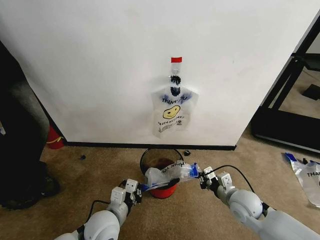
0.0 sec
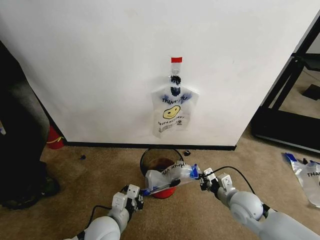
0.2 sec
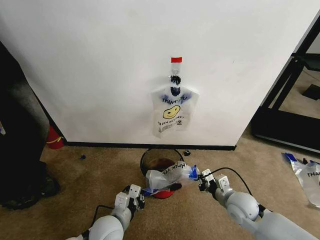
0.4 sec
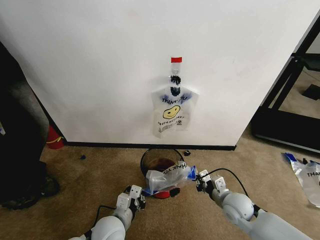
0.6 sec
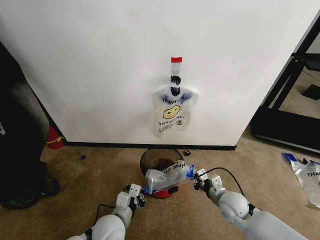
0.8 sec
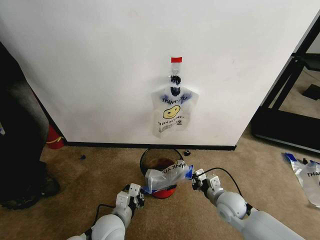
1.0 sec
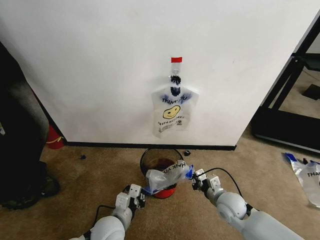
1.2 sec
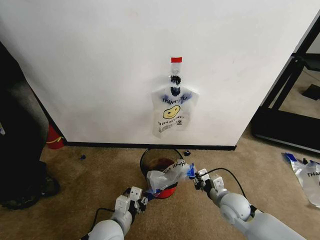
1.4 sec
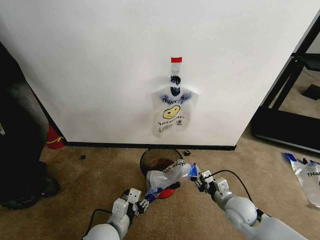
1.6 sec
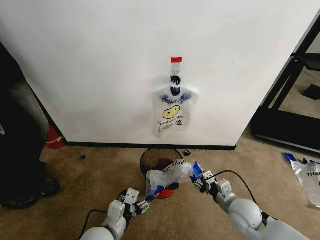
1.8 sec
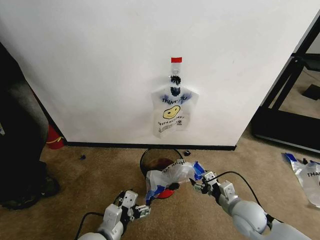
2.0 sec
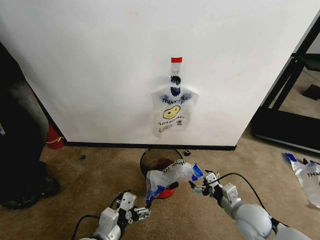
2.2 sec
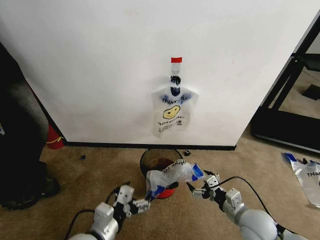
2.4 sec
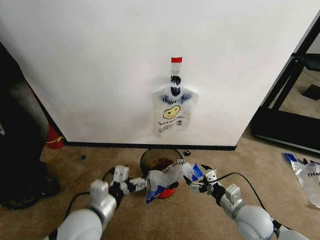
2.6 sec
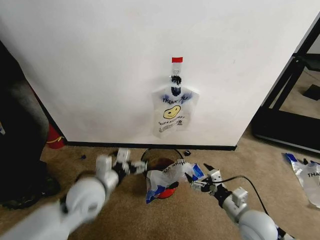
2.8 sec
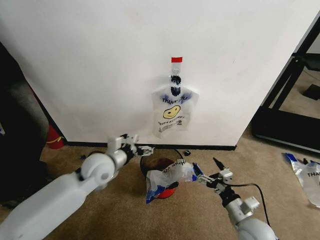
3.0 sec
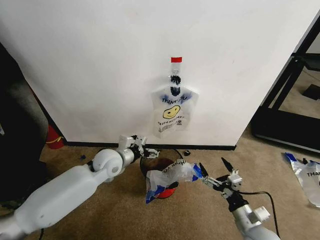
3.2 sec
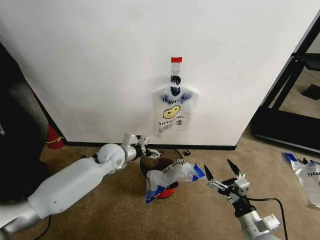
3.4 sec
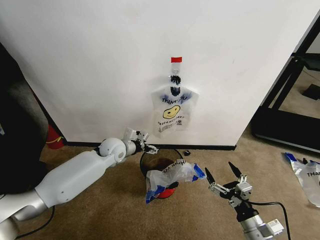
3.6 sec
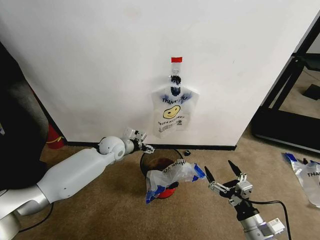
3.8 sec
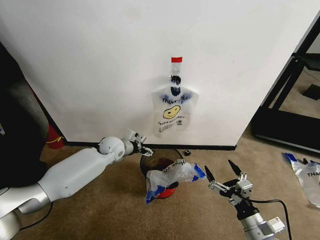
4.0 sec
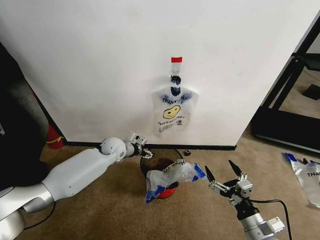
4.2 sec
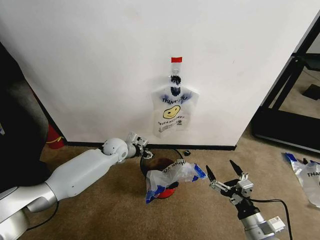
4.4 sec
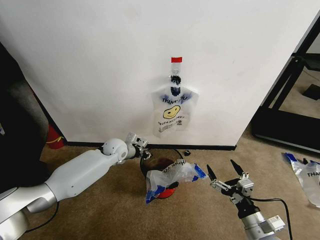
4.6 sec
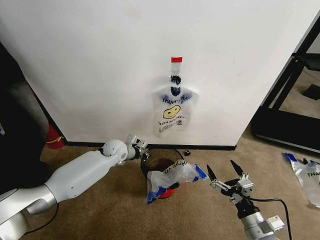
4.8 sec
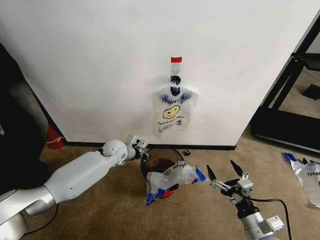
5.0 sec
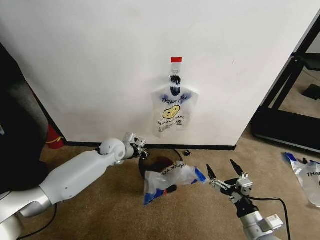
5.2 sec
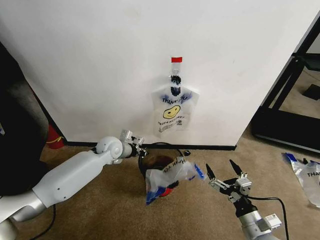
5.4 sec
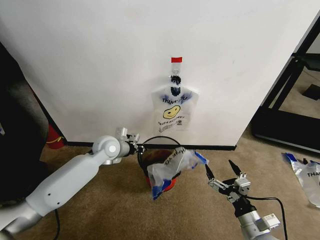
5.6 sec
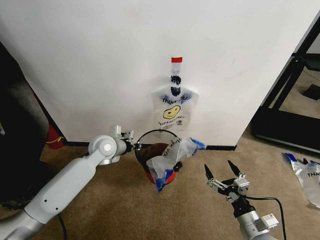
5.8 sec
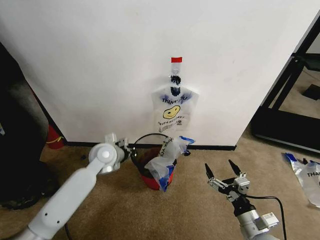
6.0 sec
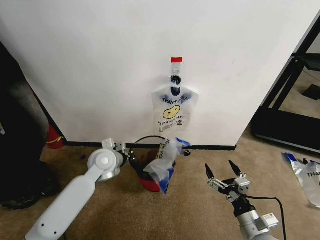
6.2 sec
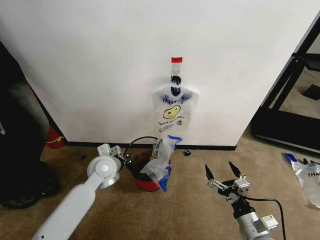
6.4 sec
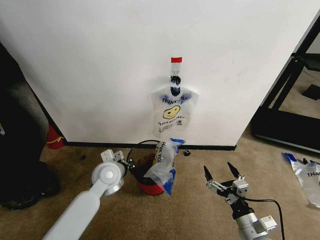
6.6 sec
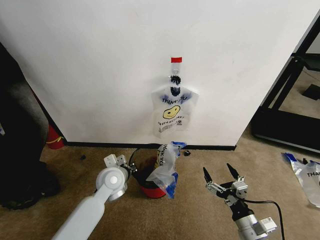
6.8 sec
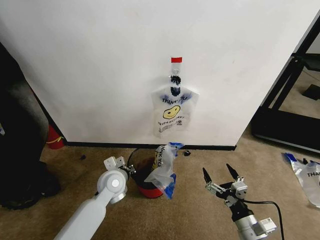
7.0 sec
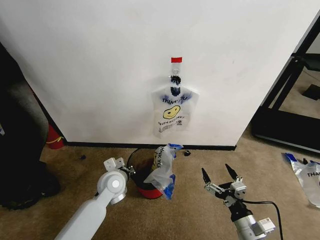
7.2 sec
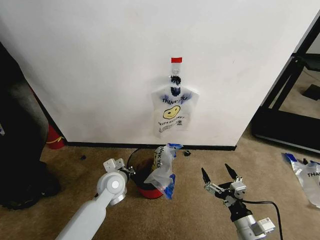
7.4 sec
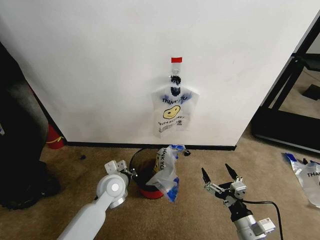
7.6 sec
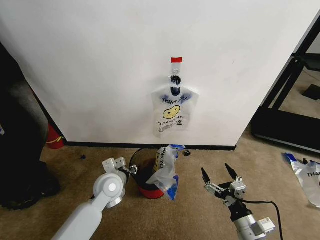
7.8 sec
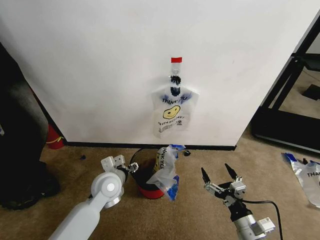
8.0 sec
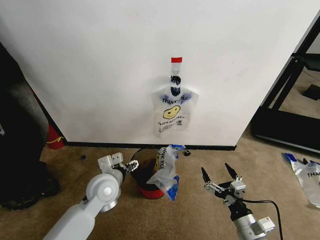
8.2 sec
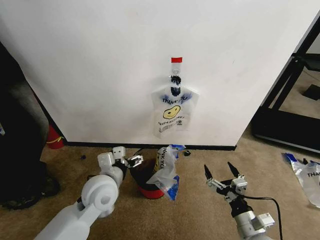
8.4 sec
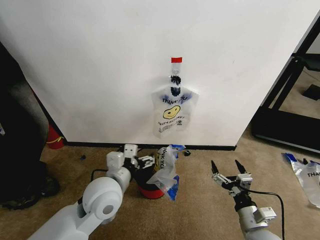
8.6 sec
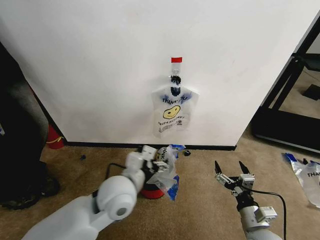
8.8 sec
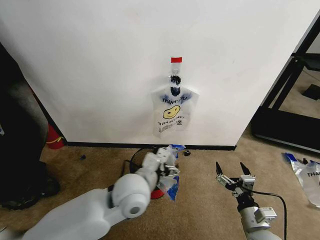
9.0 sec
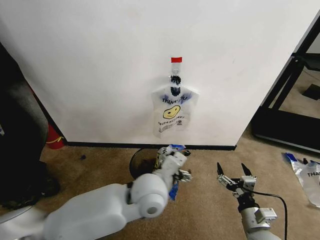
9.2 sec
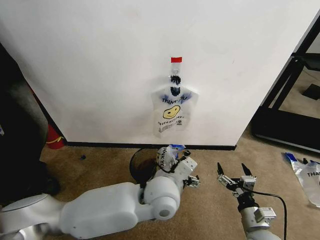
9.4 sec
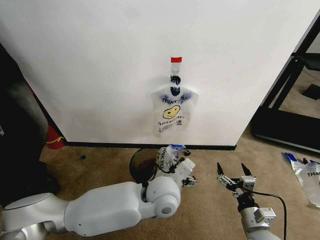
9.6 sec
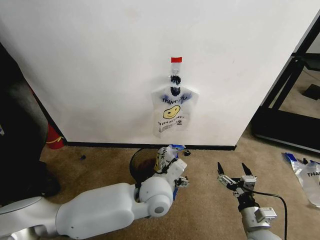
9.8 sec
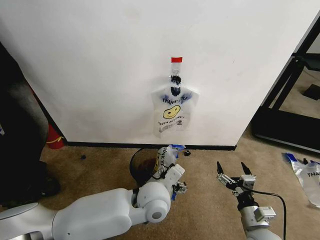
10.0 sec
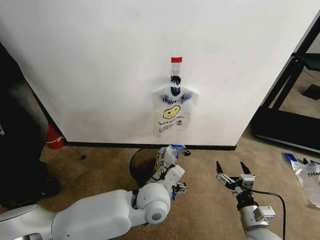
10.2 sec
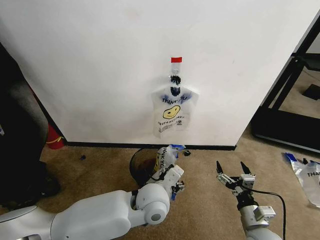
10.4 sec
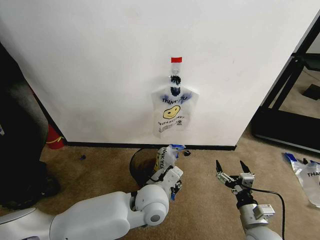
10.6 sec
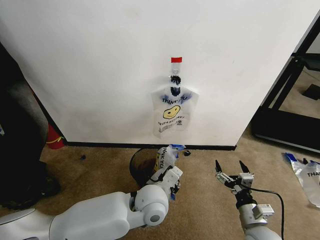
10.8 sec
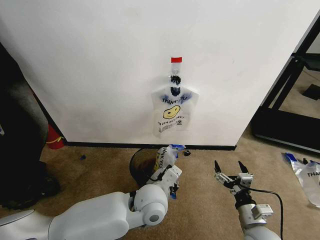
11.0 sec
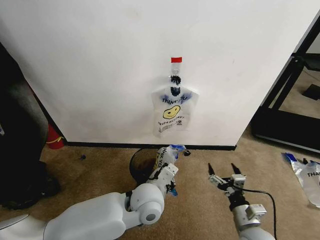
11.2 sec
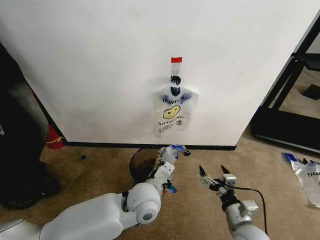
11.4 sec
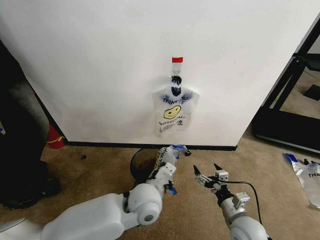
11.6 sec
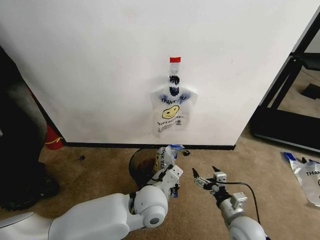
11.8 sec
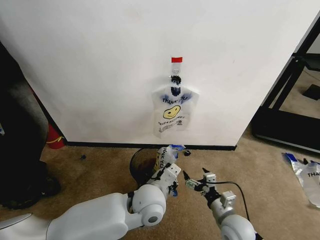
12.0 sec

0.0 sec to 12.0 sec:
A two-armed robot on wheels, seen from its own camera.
Task of the whole recording: Pick up the garbage bag from the wall and place it over the trash bin.
0.0 sec to 1.6 sec: The left gripper opens its fingers. Meanwhile the right gripper opens its fingers.
1.6 sec to 3.0 sec: The left gripper heads forward and upward, covering roughly 20 cm, and opens its fingers; the right gripper is displaced backward by approximately 5 cm, and opens up.
3.0 sec to 4.4 sec: The left gripper is displaced forward and downward by some 15 cm, and closes. The right gripper heads backward, covering roughly 5 cm.
4.4 sec to 6.0 sec: The left gripper travels backward and upward by roughly 10 cm, and closes.
6.0 sec to 7.6 sec: The left gripper travels backward and downward by about 10 cm.
7.6 sec to 9.0 sec: The left gripper moves upward, to the right and backward, about 15 cm, and opens.
9.0 sec to 10.4 sec: The left gripper moves downward, approximately 5 cm.
10.4 sec to 12.0 sec: The right gripper shifts about 5 cm to the left; the left gripper closes its fingers.

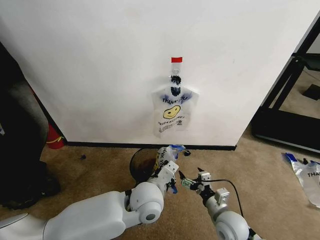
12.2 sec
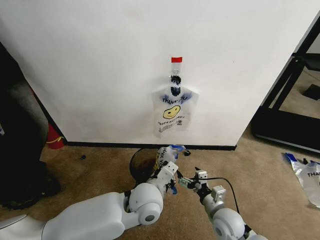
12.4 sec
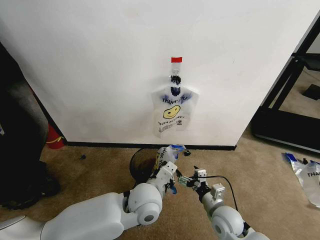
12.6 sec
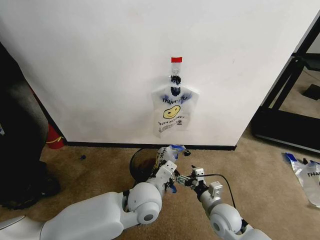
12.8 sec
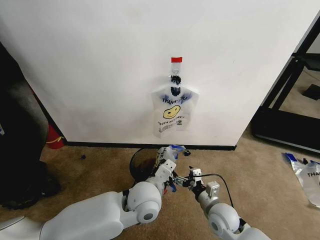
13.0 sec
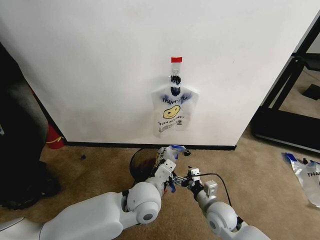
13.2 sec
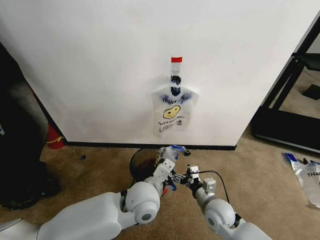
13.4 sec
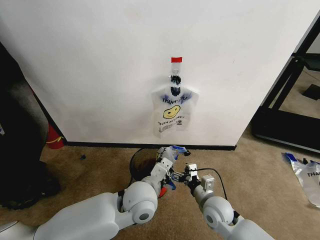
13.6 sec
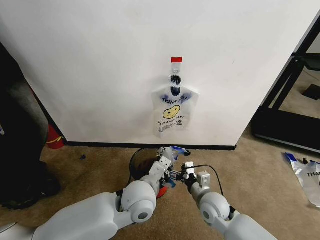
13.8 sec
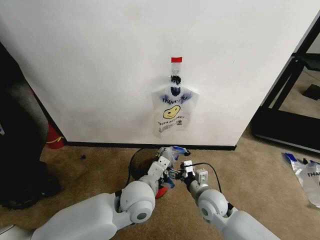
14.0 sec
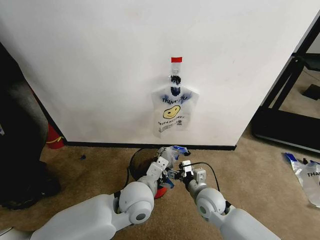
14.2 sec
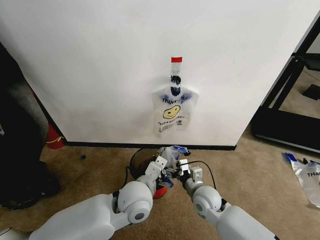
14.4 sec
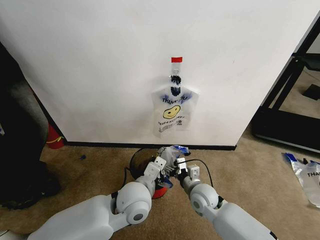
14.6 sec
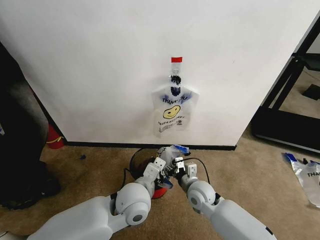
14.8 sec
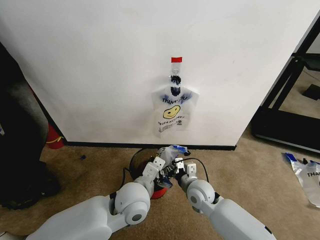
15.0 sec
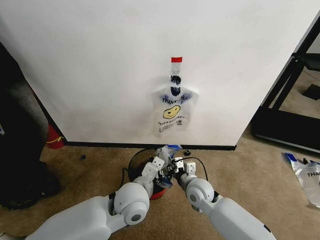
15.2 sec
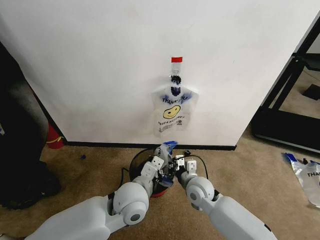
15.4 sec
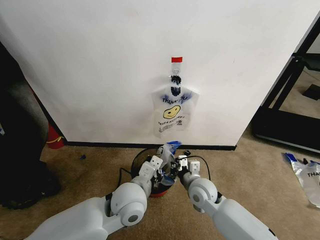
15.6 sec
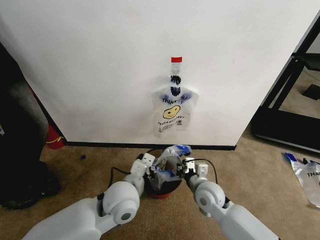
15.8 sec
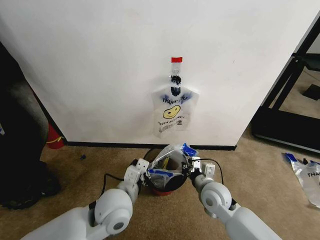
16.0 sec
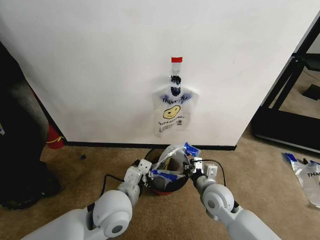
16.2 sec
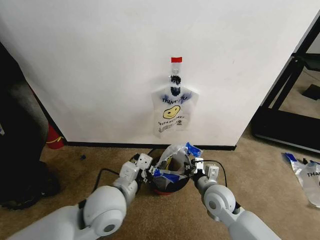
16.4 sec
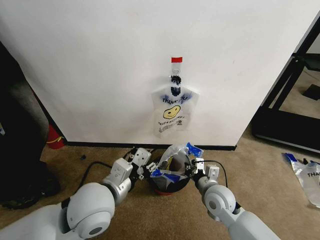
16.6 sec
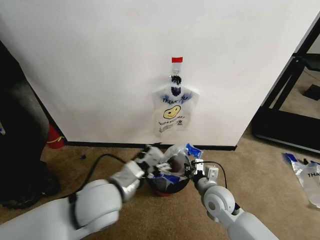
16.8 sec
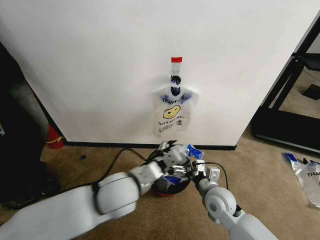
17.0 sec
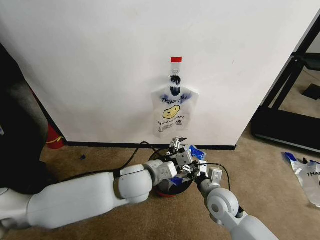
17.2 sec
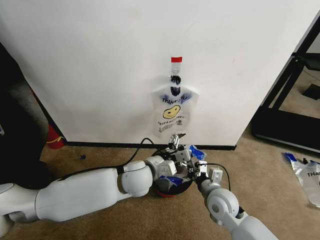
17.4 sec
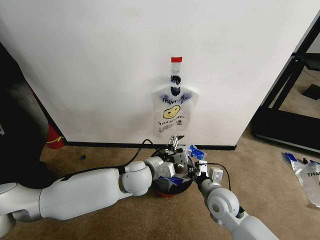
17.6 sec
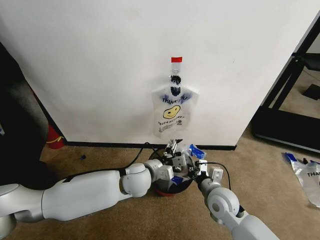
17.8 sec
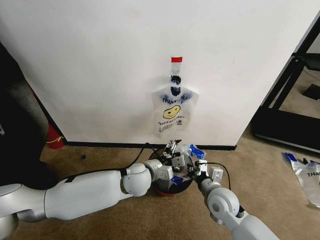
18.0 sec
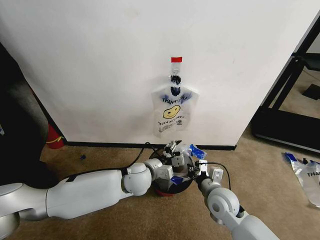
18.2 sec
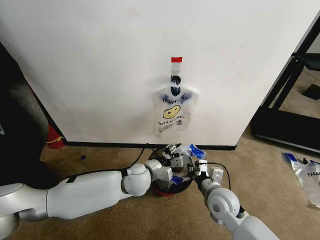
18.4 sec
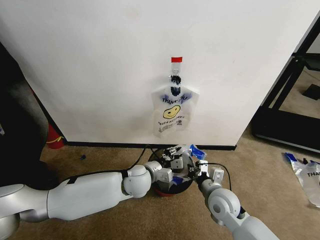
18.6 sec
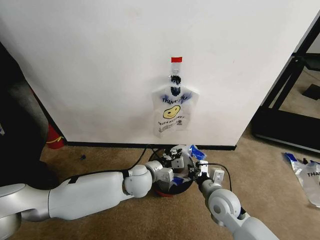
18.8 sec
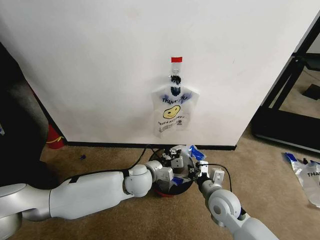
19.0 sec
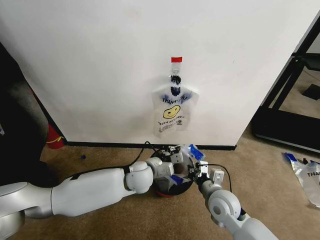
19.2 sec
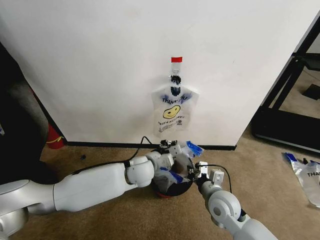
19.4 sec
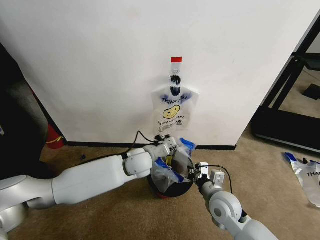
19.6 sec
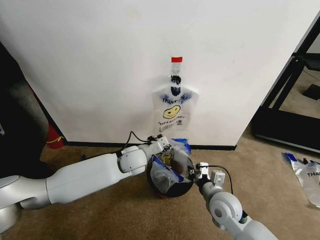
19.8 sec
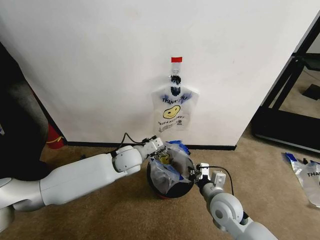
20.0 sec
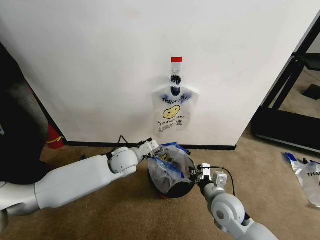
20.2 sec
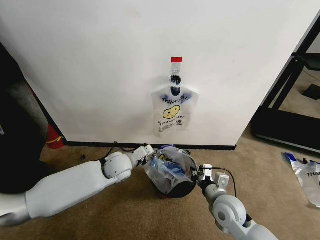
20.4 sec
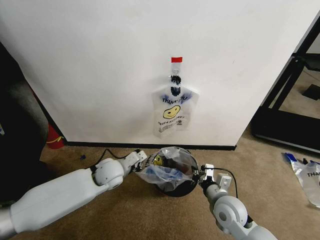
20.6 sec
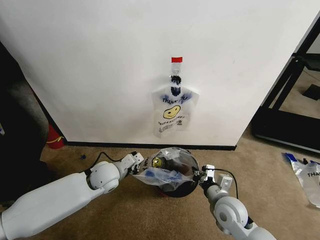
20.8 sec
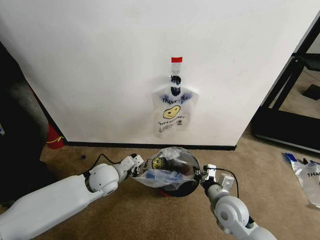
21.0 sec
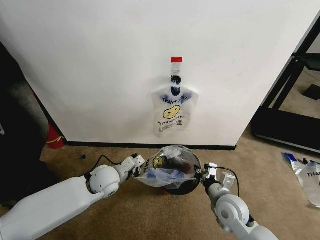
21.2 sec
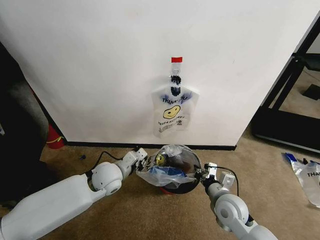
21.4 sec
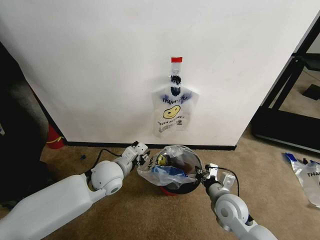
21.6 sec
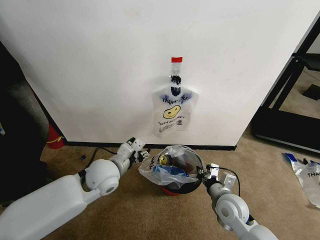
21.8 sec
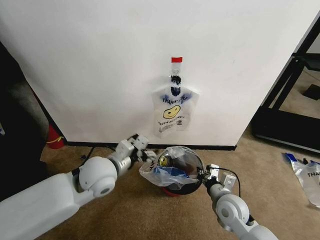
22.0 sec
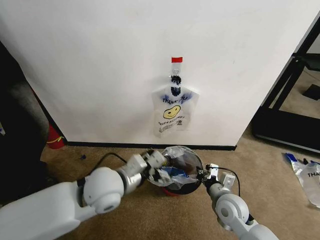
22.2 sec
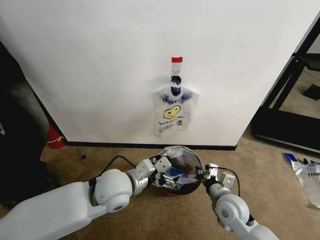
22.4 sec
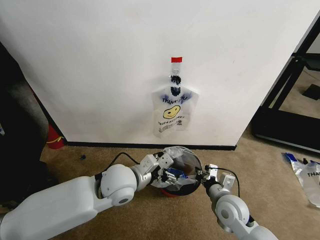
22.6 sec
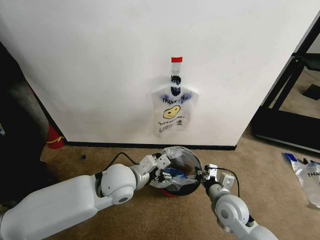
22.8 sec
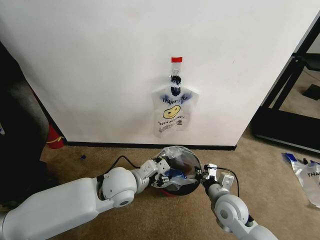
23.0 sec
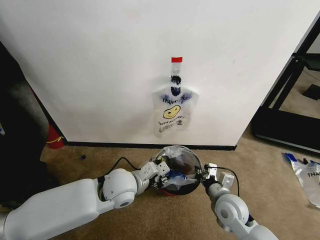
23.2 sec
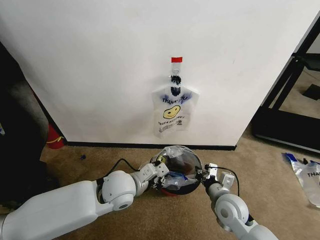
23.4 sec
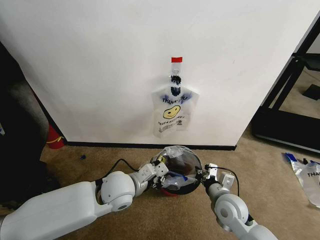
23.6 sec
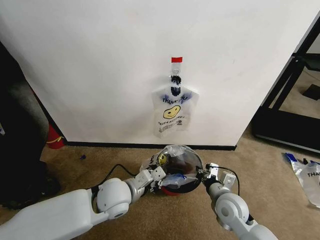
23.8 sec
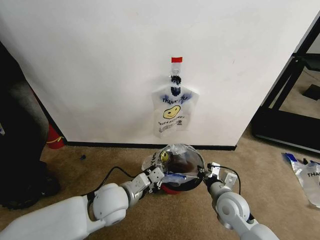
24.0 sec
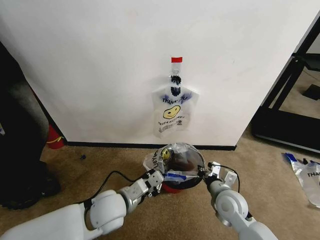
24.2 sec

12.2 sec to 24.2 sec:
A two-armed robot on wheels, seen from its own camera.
Task of the whole recording: Pick up the garbage bag from the wall and place it over the trash bin.
12.2 sec to 13.8 sec: The right gripper is displaced forward and to the left by roughly 10 cm.
13.8 sec to 15.2 sec: The right gripper changes place by approximately 5 cm, and closes.
15.2 sec to 16.6 sec: The left gripper shifts about 10 cm upward and to the left, and opens its fingers; the right gripper is displaced to the right by approximately 5 cm.
16.6 sec to 18.2 sec: The left gripper heads forward, downward and to the right, covering some 20 cm.
18.2 sec to 19.8 sec: The left gripper travels forward by approximately 5 cm, and closes up.
19.8 sec to 21.2 sec: The left gripper is displaced to the left and backward by some 10 cm.
21.2 sec to 22.6 sec: The left gripper moves upward, to the right and backward, some 15 cm, and opens up.
22.6 sec to 24.2 sec: The left gripper is displaced downward by about 5 cm, and closes its fingers.
